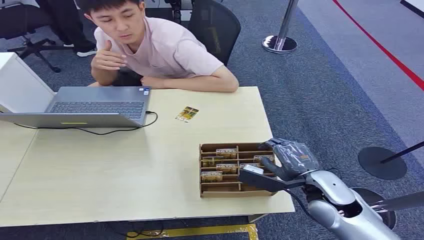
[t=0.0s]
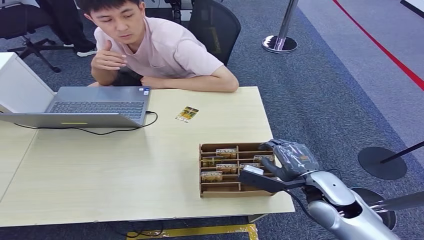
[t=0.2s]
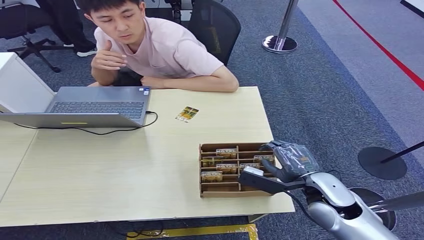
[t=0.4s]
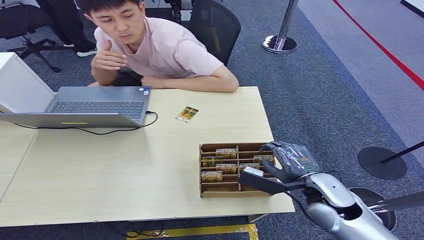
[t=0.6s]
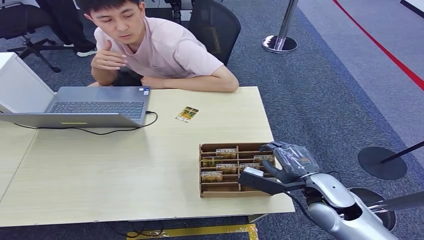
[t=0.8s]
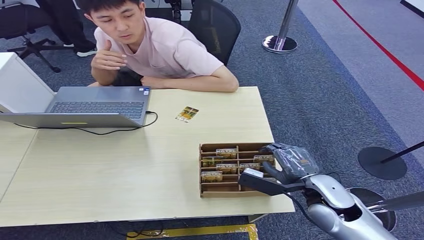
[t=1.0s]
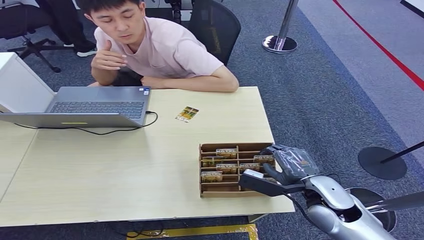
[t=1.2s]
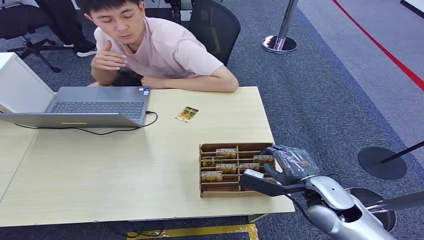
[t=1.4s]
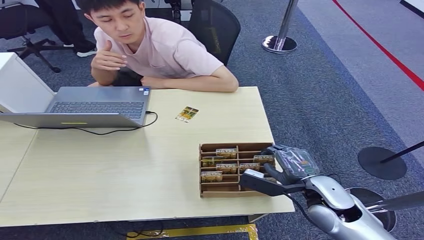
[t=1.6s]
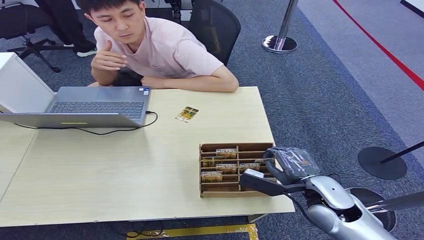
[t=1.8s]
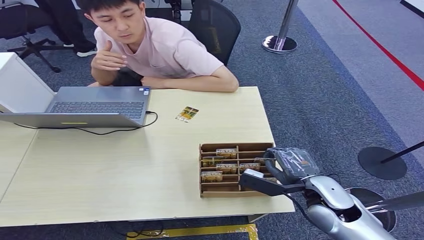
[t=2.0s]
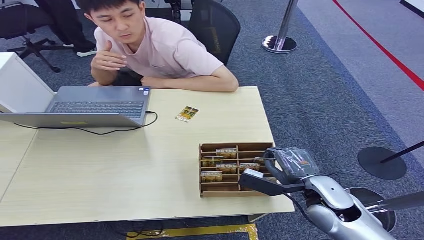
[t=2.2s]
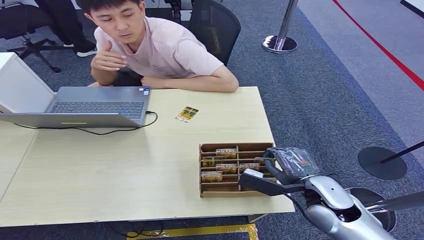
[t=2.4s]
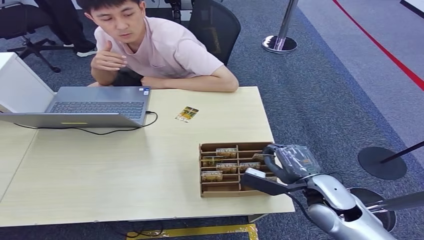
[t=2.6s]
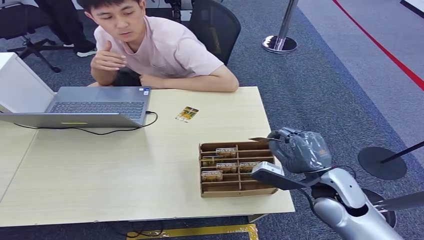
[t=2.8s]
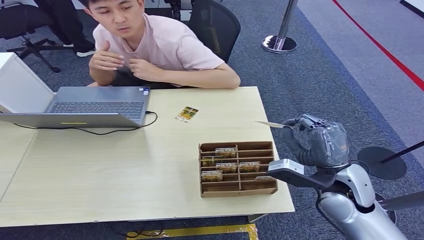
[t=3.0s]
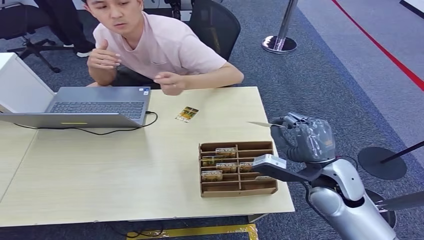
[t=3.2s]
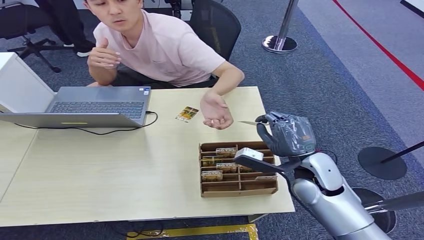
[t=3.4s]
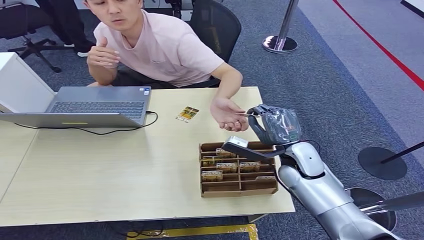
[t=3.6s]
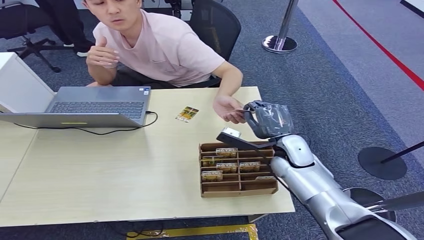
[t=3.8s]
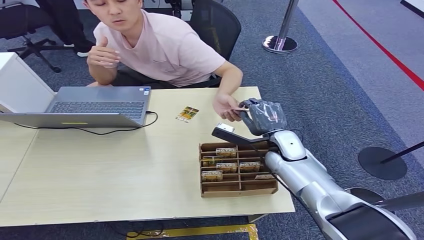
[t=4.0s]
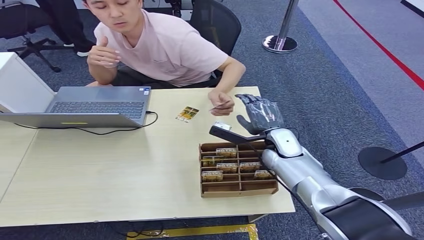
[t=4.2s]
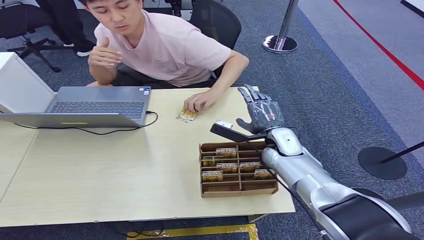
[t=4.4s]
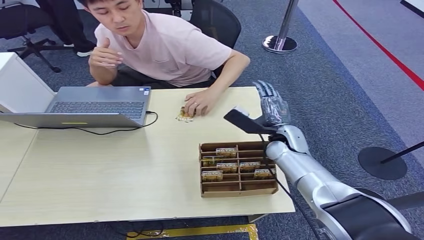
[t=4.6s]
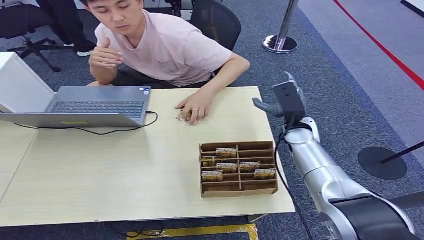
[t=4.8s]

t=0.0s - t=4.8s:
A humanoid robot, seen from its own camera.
Step, t=0.0s - t=2.8s: Pick up the key card from the card box.
Step, t=3.0s - t=4.8s: Hand the key card to the target.
t=1.6s - t=3.2s: The right hand is displaced upward by about 5 cm.
t=3.2s - t=4.8s: The right hand moves forward, approximately 15 cm.

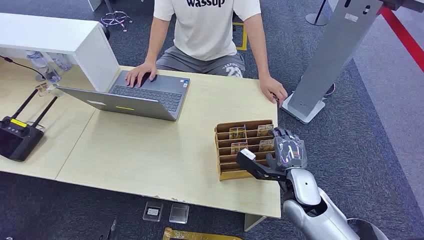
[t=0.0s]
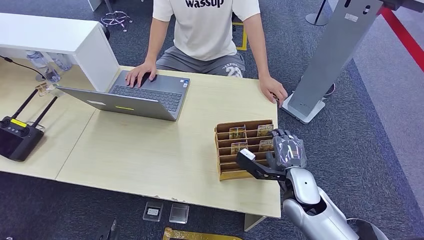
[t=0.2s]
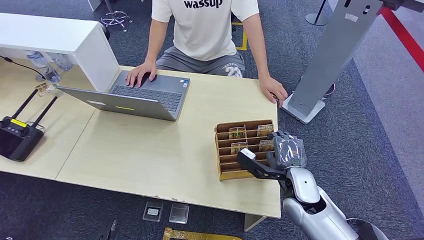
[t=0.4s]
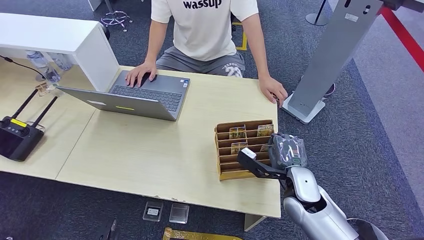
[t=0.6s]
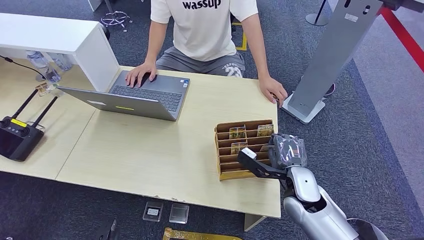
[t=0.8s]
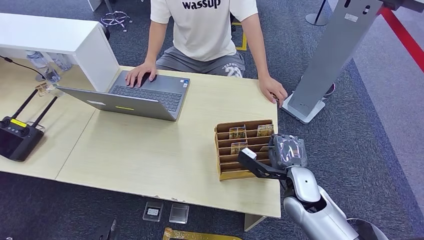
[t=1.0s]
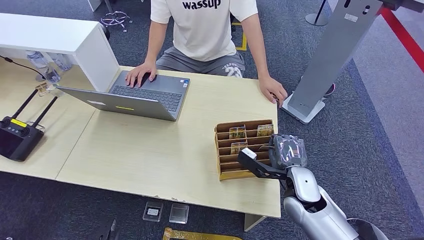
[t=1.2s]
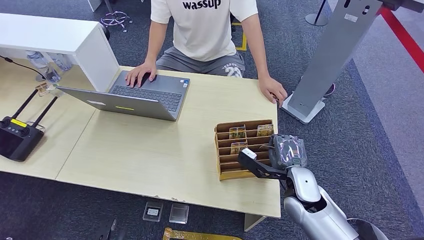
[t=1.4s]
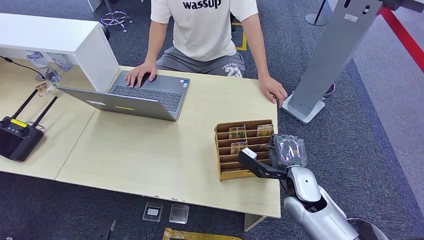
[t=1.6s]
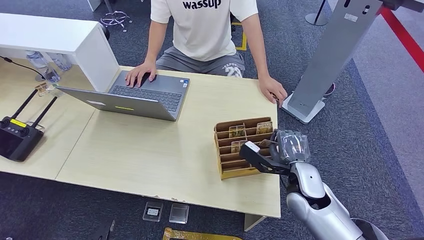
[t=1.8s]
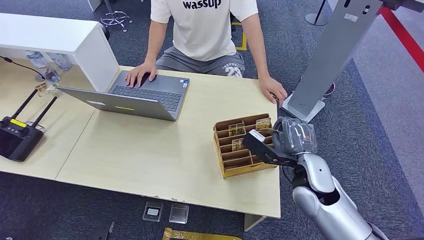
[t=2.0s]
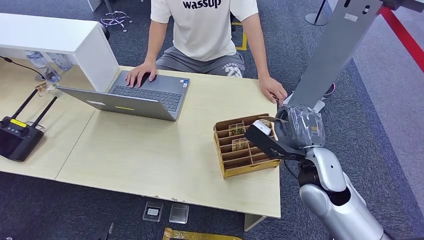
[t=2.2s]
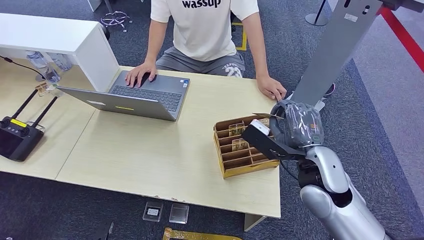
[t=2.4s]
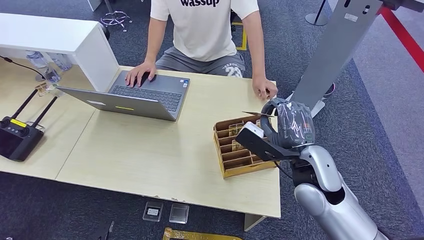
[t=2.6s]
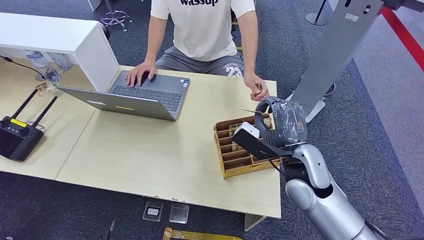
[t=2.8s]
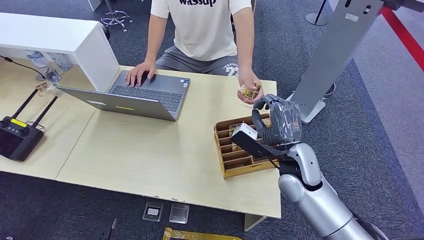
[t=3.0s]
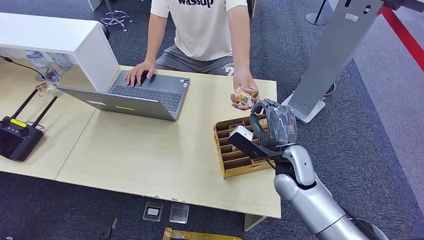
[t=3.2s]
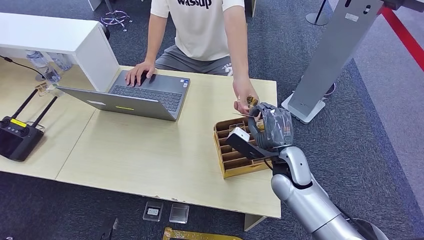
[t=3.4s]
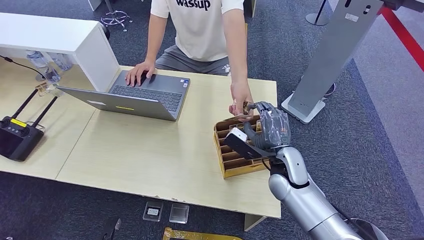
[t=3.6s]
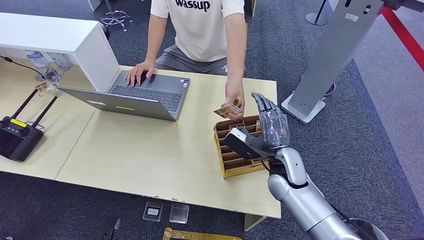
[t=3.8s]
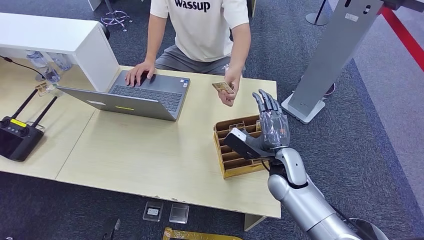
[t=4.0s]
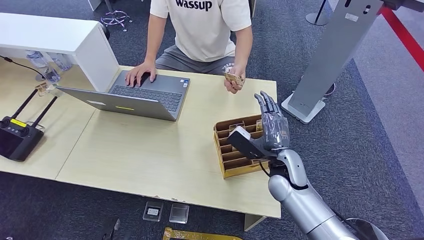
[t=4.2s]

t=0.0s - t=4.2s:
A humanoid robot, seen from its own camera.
Step, t=0.0s - t=1.8s: Pick up the key card from the card box.
Step, t=2.4s - t=4.2s: Hand the key card to the target.
t=1.4s - t=2.8s: The right hand is displaced upward by about 10 cm.
t=2.8s - t=4.2s: The right hand shifts roughly 5 cm downward.
